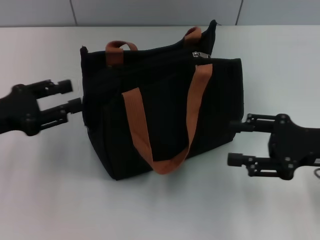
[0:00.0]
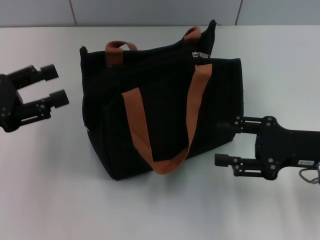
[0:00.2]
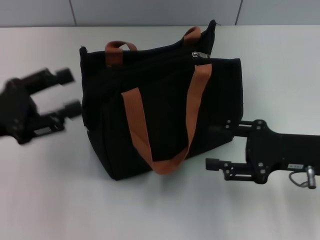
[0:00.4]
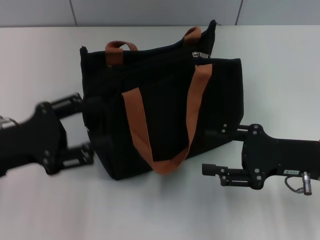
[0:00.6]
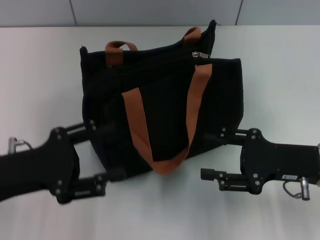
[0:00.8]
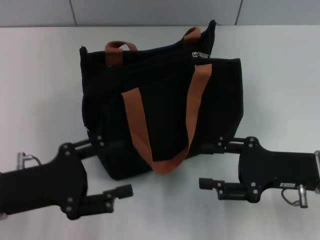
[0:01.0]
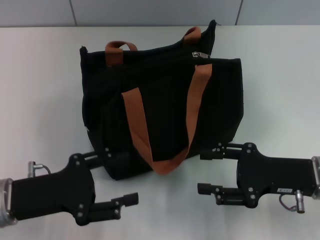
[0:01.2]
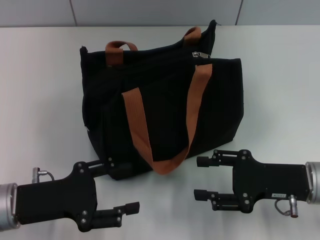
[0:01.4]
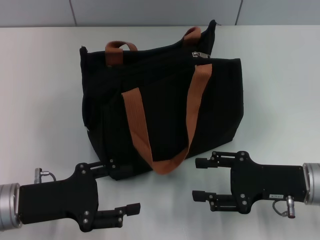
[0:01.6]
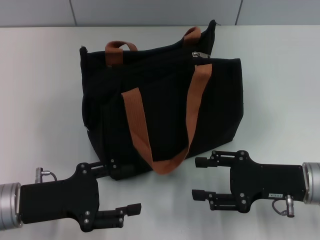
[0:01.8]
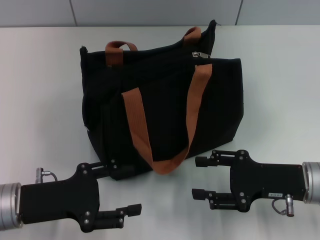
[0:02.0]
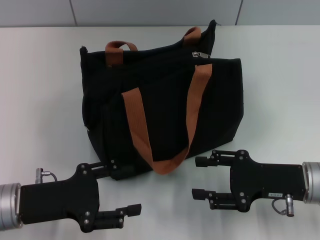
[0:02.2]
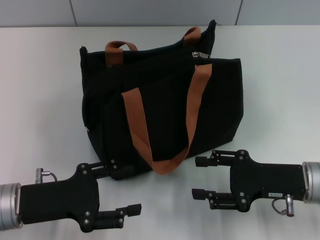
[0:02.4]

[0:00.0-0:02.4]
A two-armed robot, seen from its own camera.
0:00.0 to 0:01.2: The right gripper shifts by approximately 5 cm. Meanwhile the left gripper is displaced backward and to the right by some 10 cm, and opens up.
0:01.2 to 0:02.4: The grippers stay close to where they were, moving slightly.

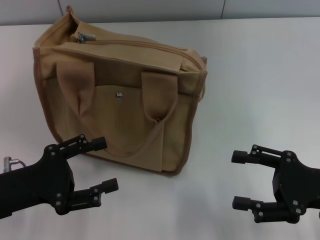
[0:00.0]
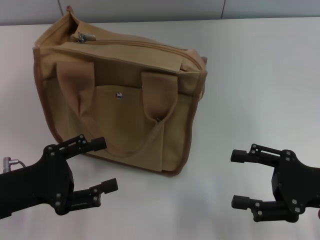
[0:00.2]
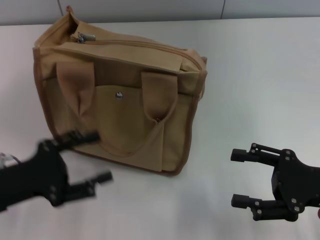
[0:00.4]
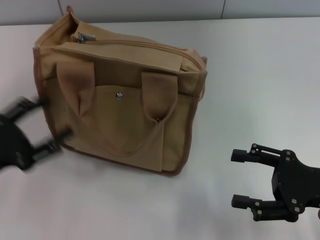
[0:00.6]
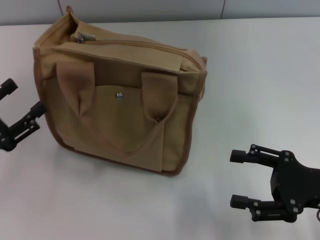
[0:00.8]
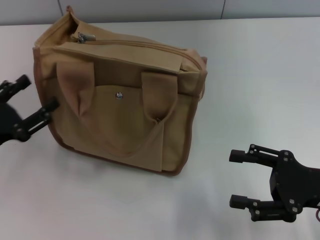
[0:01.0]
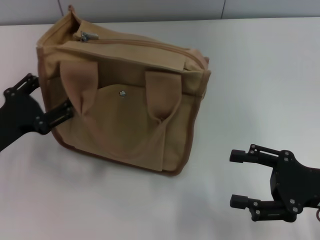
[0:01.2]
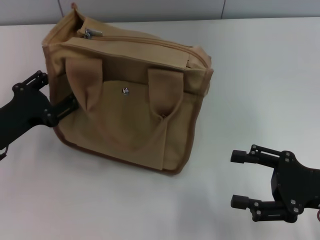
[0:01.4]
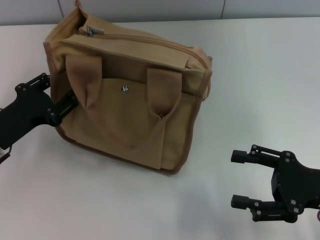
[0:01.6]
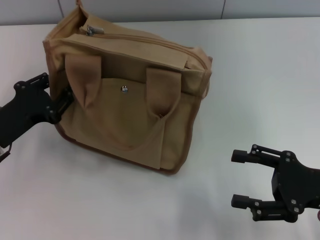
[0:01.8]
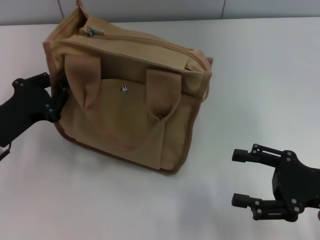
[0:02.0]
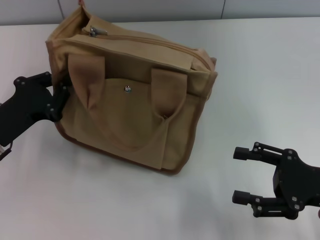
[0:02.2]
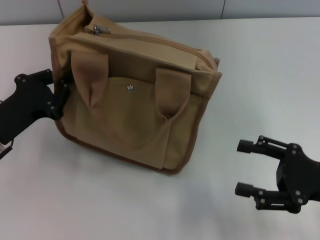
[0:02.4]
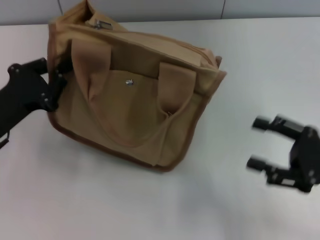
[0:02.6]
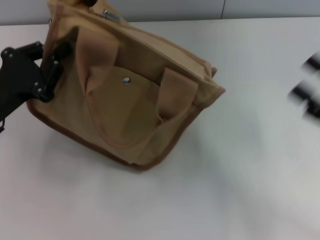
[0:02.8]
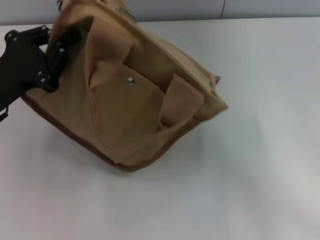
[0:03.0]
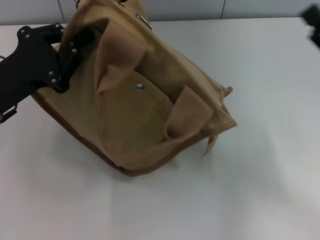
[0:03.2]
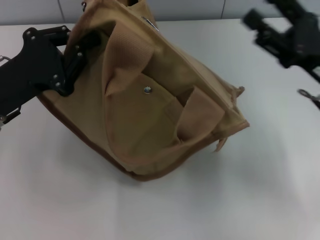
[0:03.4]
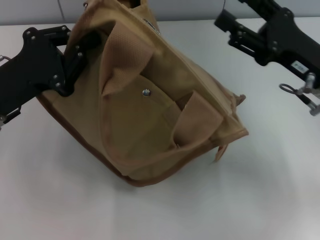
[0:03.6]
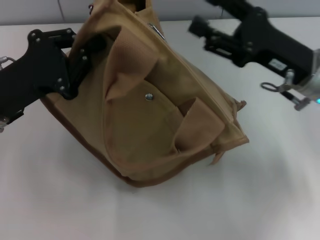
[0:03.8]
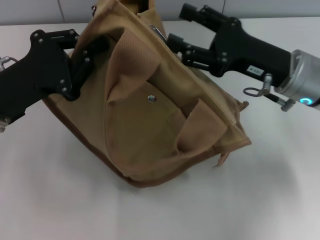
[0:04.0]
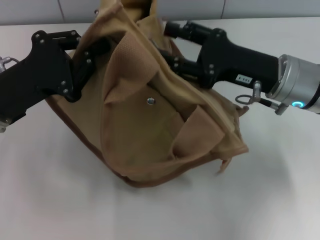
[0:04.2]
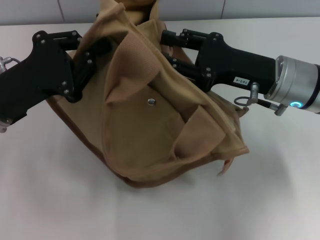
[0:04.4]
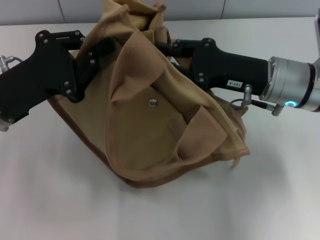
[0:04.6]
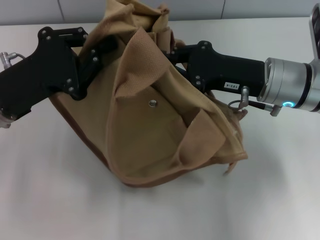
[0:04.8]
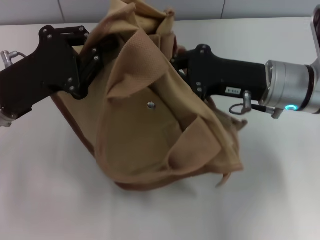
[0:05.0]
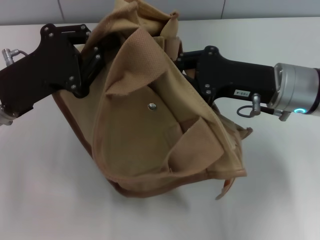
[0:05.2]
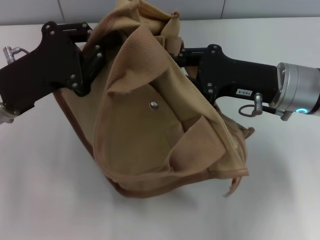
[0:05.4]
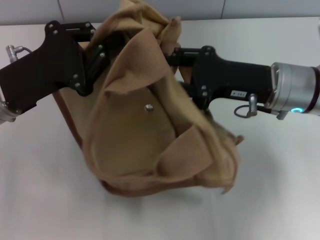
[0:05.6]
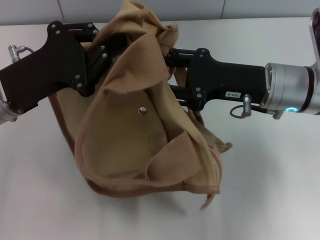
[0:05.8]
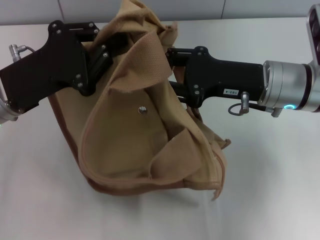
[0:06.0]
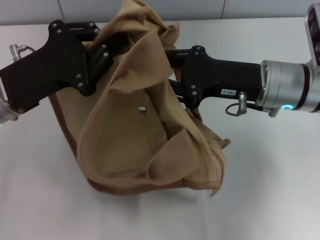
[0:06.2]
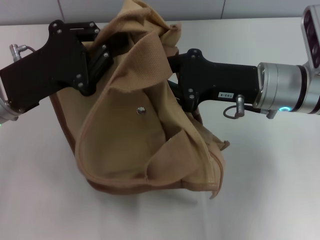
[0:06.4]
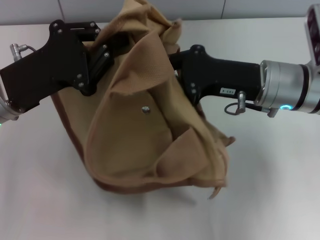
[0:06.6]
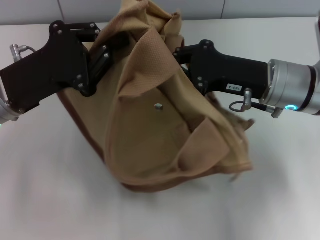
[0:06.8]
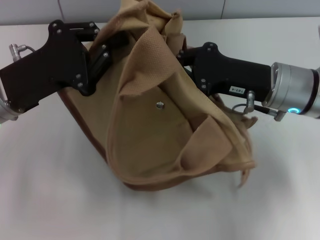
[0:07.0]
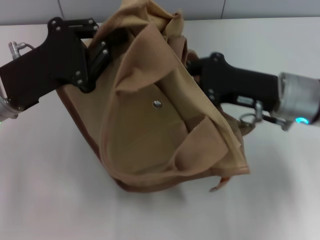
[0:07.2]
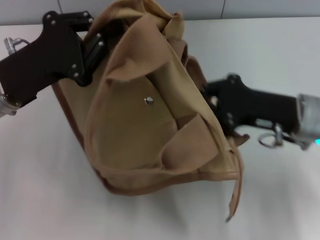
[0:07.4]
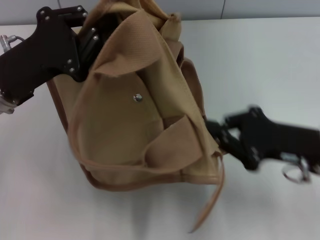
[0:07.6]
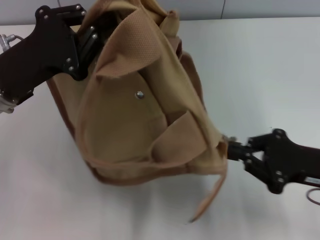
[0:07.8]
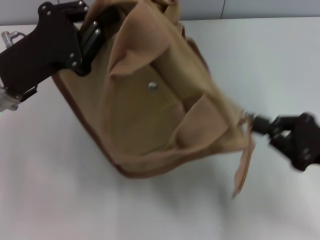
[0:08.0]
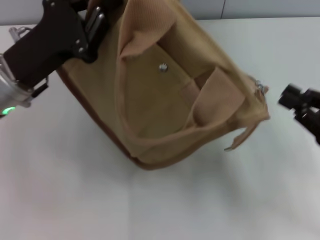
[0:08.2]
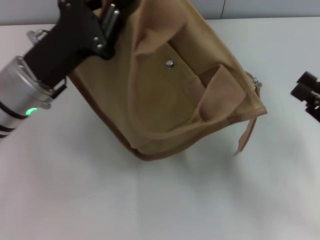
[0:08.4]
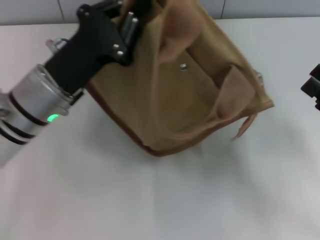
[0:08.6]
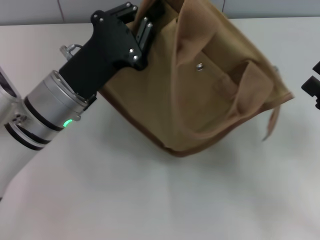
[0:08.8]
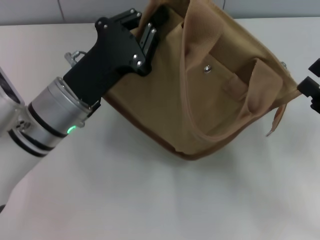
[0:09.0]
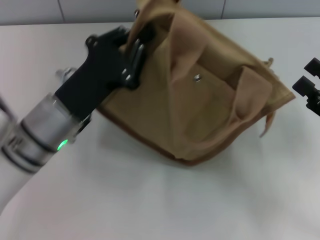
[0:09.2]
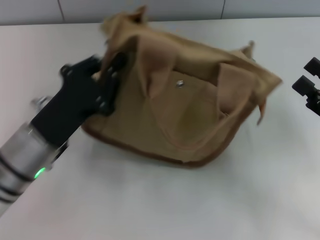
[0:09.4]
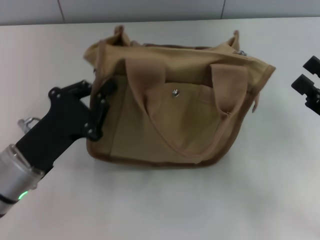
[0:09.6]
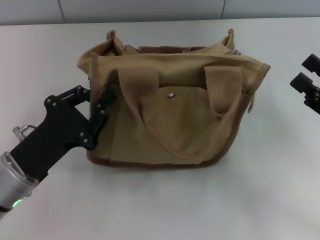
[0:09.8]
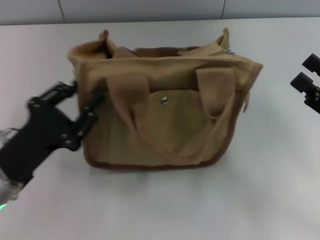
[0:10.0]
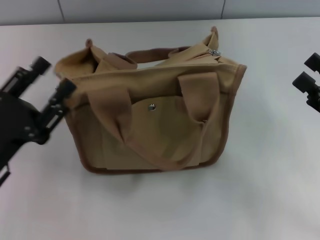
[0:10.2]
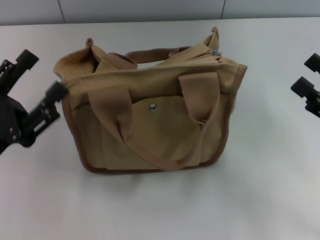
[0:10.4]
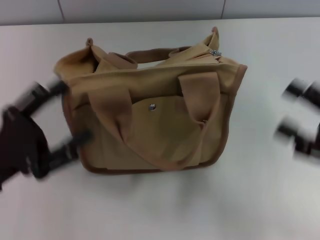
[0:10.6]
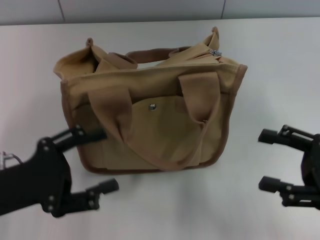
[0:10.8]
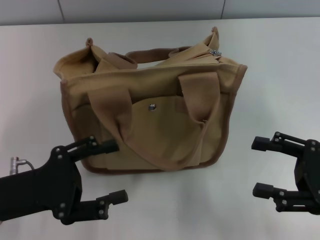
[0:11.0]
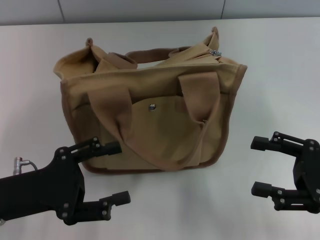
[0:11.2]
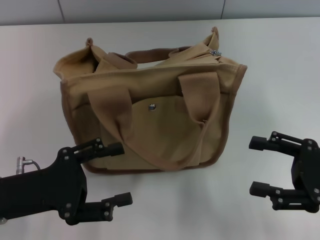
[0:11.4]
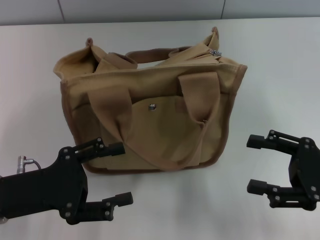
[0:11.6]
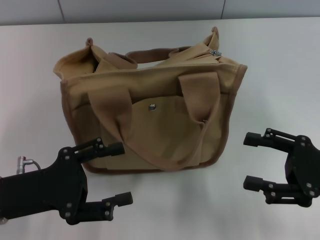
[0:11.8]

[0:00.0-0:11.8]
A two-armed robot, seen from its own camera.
Step, 0:00.0 to 0:08.2: Pull open the zipper with your right hand.
Step, 0:08.4 to 0:10.0: Grab the bag with your left hand.
0:00.0 to 0:01.4: The left gripper shifts approximately 5 cm forward.
0:01.4 to 0:03.0: The right gripper ends up about 5 cm from where it was. The left gripper shifts roughly 5 cm upward, and closes up.
0:03.0 to 0:04.4: The right gripper is displaced to the left and forward by roughly 15 cm.
0:04.4 to 0:06.0: The right gripper closes, then reopens.
0:06.0 to 0:07.4: The right gripper shifts by some 5 cm, and closes its fingers.
0:07.4 to 0:08.8: The right gripper is displaced to the right and backward by about 15 cm, and opens its fingers; the left gripper is displaced to the right by roughly 10 cm.
0:08.8 to 0:10.4: The left gripper shifts about 15 cm to the left and backward, and opens.

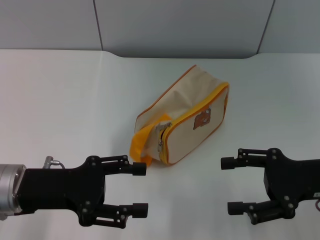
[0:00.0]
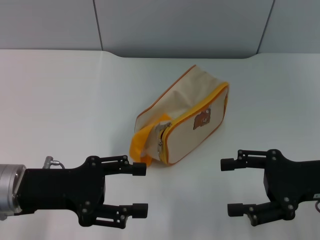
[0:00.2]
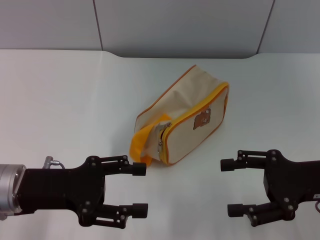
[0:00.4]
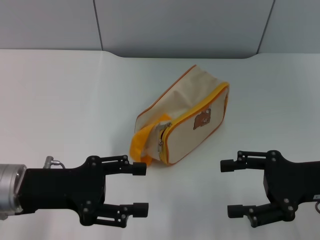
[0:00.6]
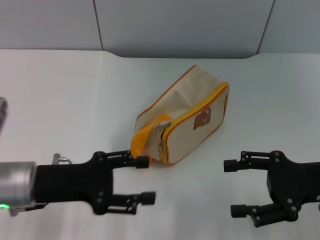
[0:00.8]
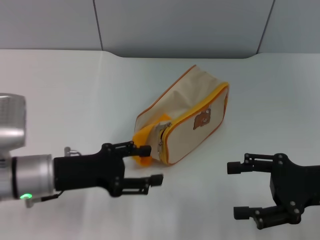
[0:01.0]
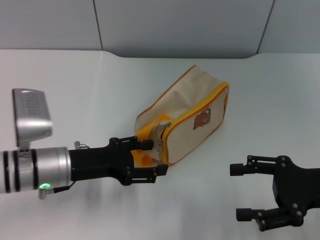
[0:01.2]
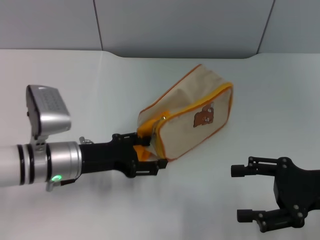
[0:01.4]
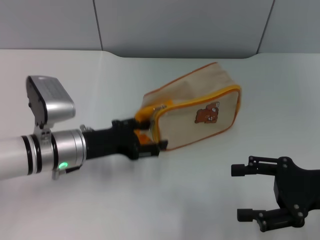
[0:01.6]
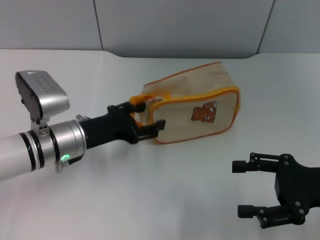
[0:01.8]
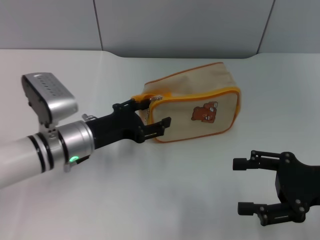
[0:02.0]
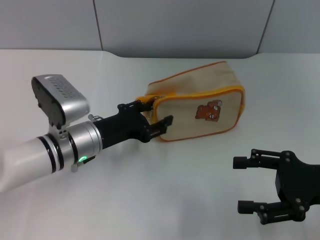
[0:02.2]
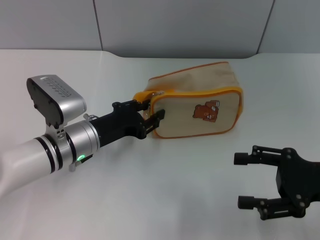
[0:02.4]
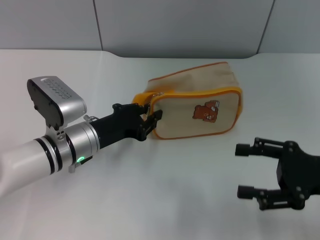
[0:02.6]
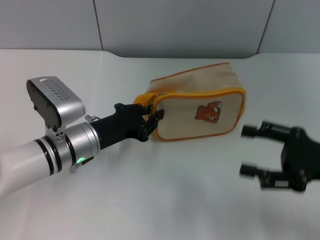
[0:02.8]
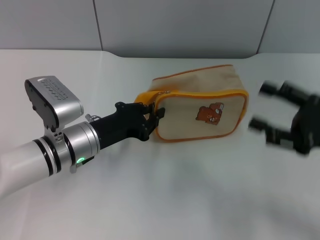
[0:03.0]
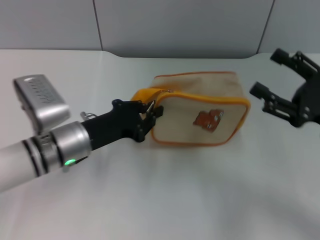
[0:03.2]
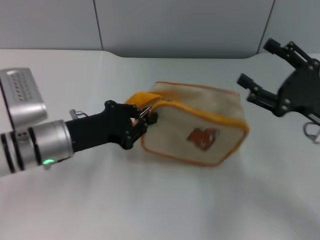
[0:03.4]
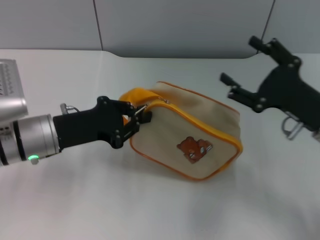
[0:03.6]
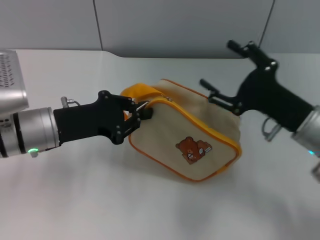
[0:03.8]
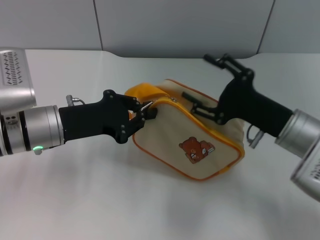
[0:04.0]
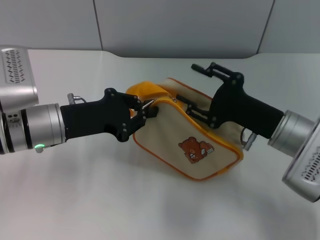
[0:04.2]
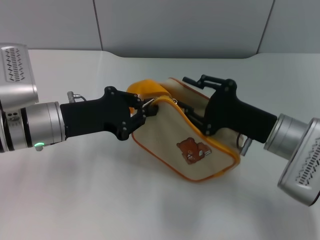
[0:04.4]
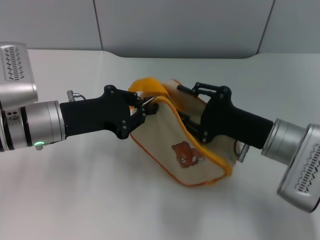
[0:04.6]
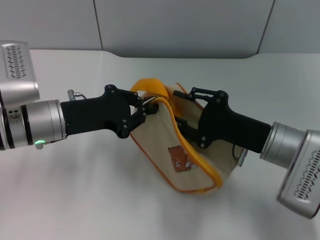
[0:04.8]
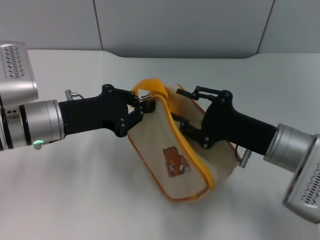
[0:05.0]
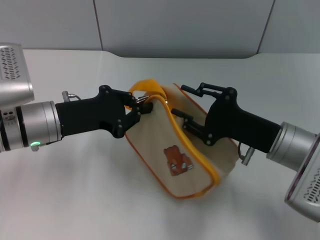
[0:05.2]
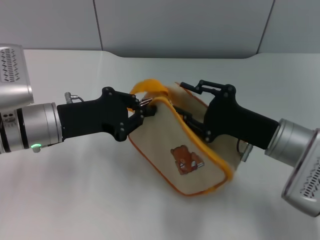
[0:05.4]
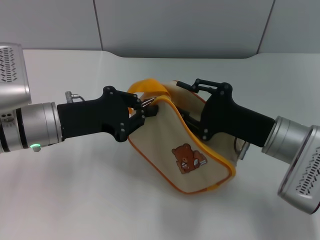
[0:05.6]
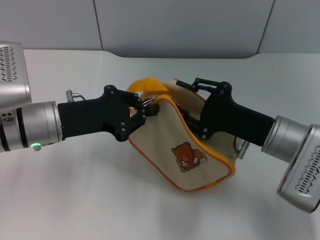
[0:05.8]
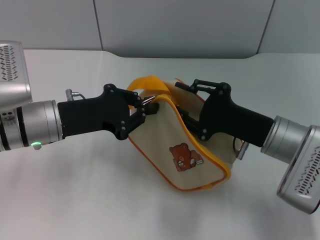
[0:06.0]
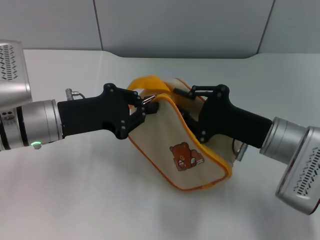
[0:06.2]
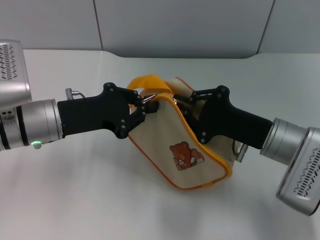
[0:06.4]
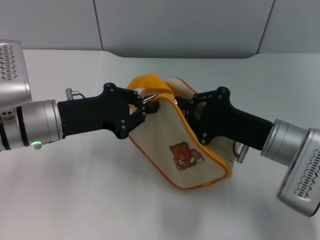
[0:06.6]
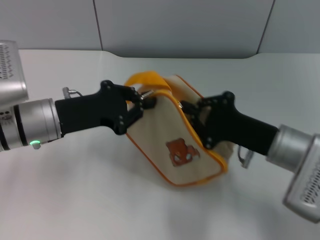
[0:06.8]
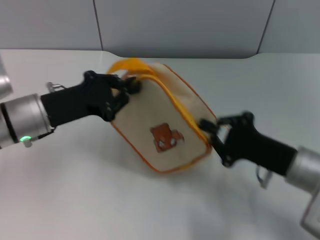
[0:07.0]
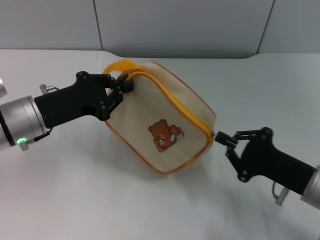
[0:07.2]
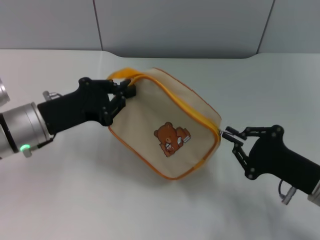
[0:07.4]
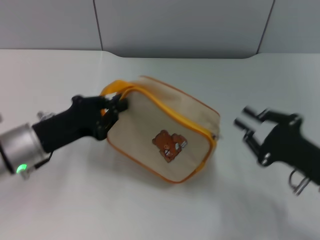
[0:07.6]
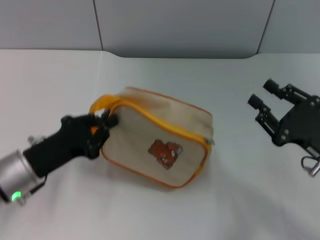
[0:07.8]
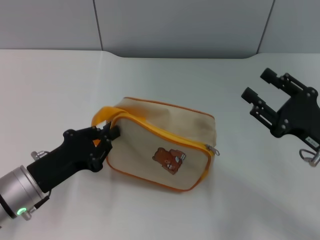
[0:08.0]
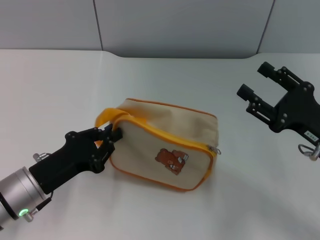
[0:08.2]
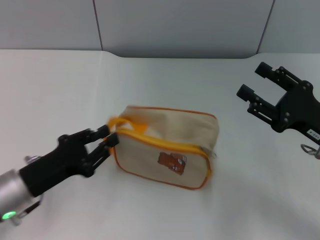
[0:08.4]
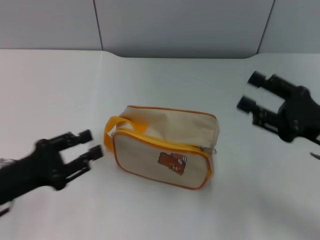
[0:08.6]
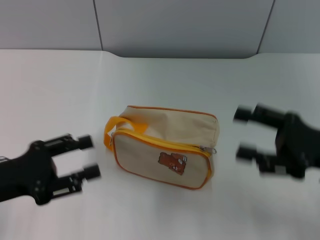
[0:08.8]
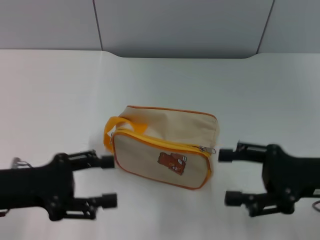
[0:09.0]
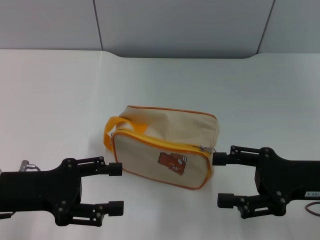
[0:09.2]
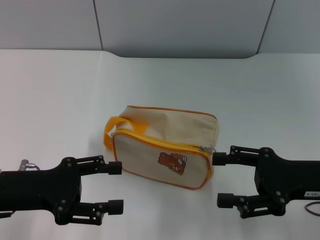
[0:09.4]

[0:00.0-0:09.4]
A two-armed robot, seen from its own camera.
Step, 0:00.0 to 0:03.6: Pick up the bag with left gripper.
Step, 0:03.8 to 0:07.6: Unzip the zipper of bag with right gripper.
Step, 0:07.8 to 0:08.4: Place the bag on the table with left gripper.
0:00.0 to 0:01.6: The left gripper travels forward and to the right by about 10 cm.
0:01.6 to 0:03.2: The left gripper closes up.
0:03.2 to 0:04.8: The right gripper is displaced to the left by about 10 cm, and closes. The left gripper travels upward by roughly 5 cm.
0:04.8 to 0:06.2: Both grippers stay about where they are.
0:06.2 to 0:07.8: The right gripper is displaced to the right and backward by some 10 cm. The left gripper goes some 10 cm backward and downward.
0:07.8 to 0:09.4: The left gripper moves about 5 cm, and opens. Meanwhile the right gripper opens.
